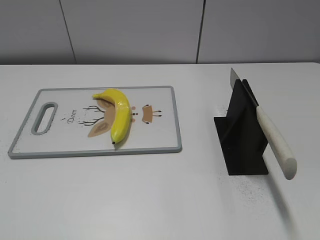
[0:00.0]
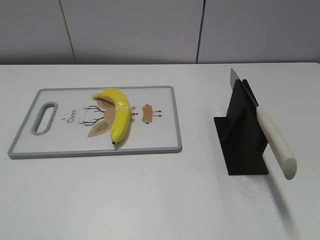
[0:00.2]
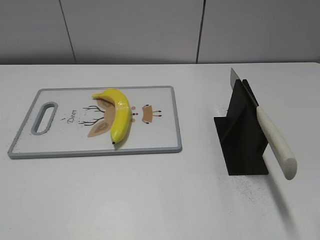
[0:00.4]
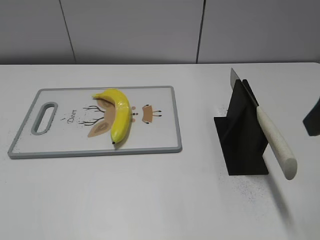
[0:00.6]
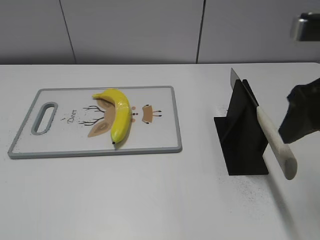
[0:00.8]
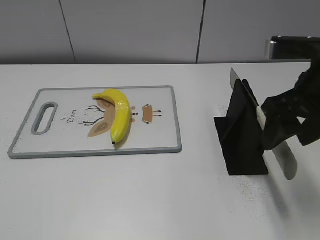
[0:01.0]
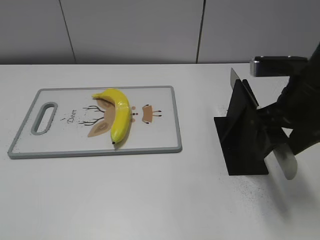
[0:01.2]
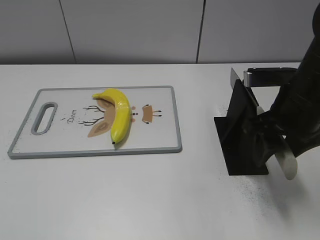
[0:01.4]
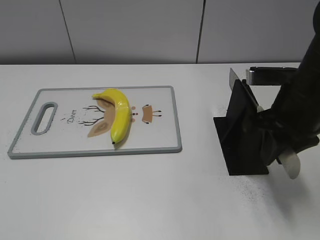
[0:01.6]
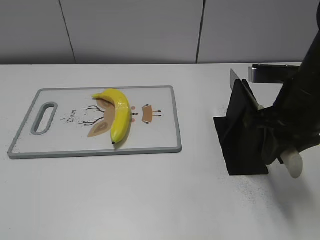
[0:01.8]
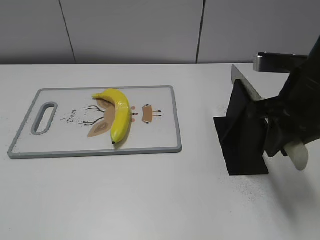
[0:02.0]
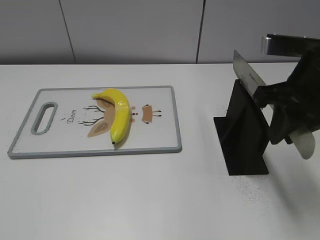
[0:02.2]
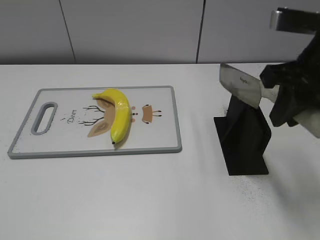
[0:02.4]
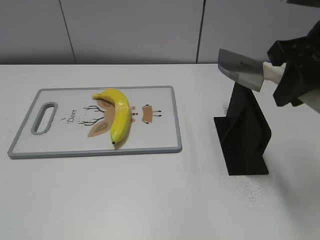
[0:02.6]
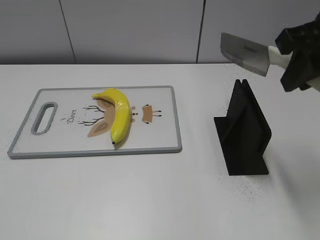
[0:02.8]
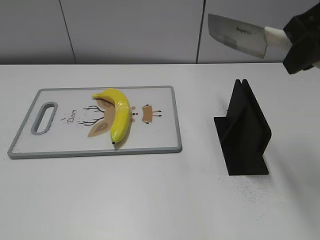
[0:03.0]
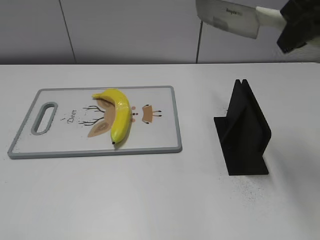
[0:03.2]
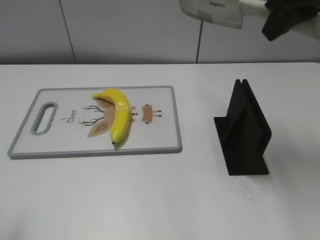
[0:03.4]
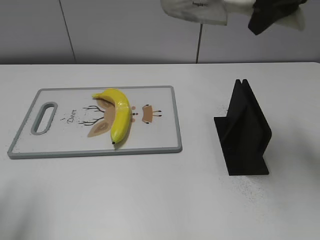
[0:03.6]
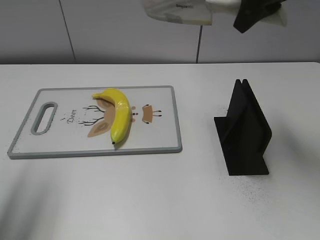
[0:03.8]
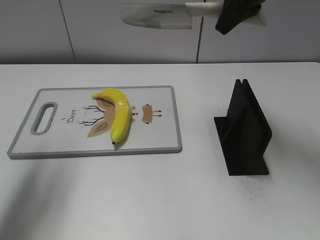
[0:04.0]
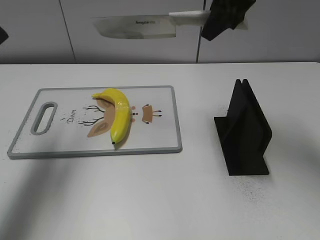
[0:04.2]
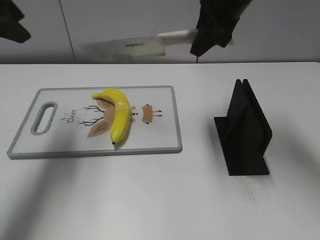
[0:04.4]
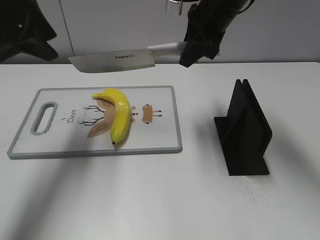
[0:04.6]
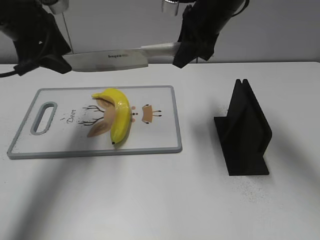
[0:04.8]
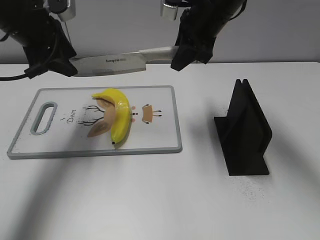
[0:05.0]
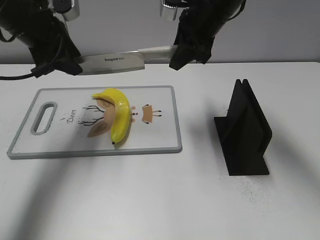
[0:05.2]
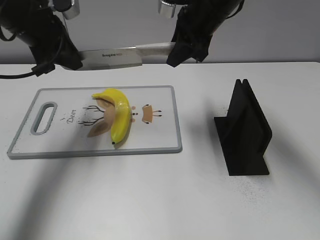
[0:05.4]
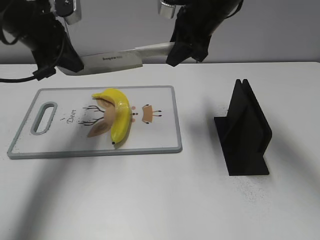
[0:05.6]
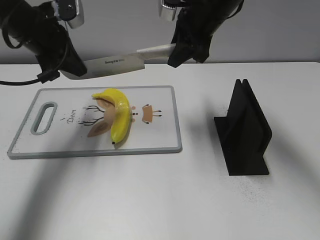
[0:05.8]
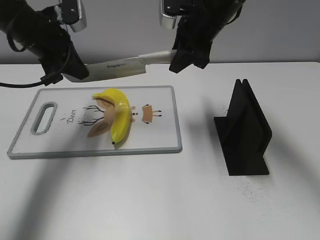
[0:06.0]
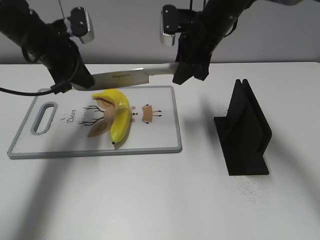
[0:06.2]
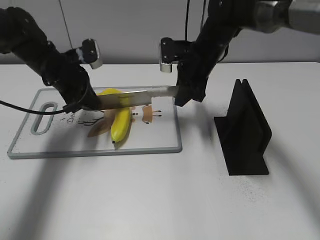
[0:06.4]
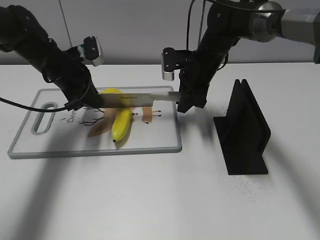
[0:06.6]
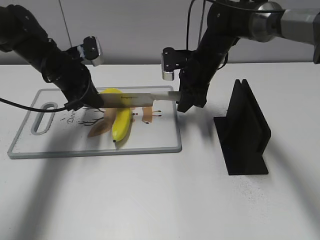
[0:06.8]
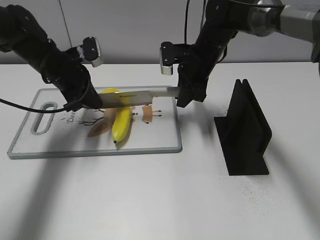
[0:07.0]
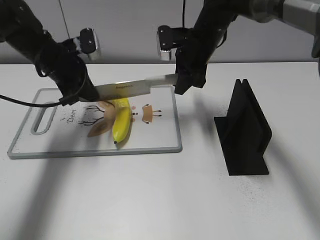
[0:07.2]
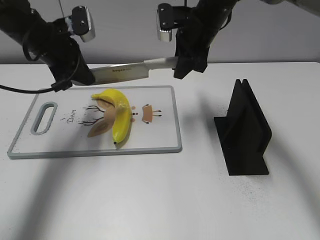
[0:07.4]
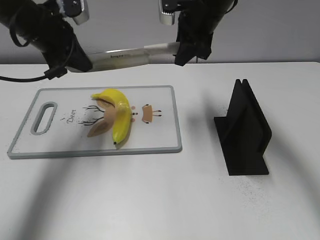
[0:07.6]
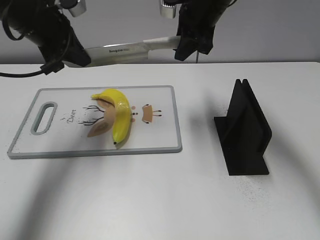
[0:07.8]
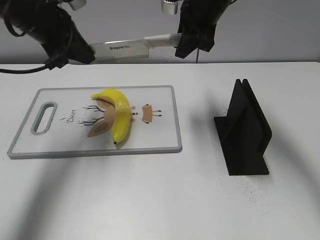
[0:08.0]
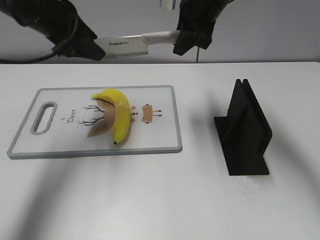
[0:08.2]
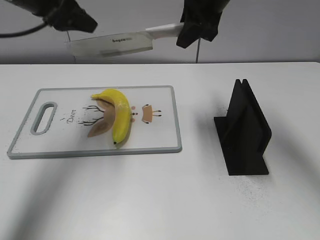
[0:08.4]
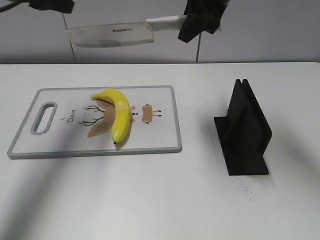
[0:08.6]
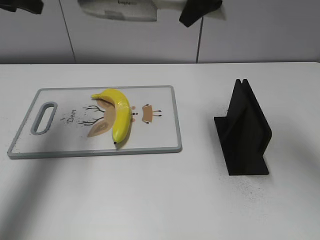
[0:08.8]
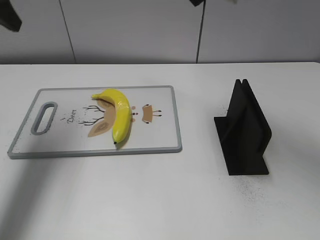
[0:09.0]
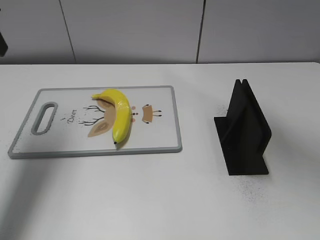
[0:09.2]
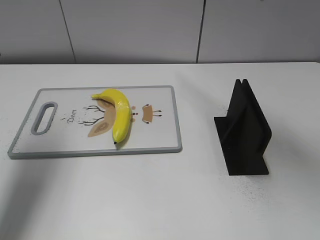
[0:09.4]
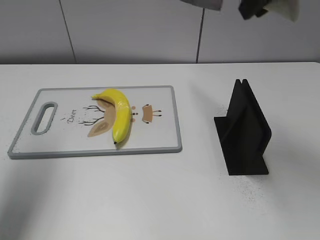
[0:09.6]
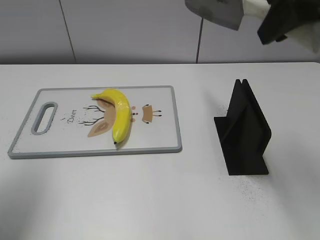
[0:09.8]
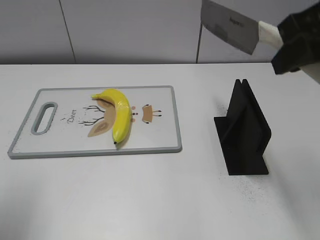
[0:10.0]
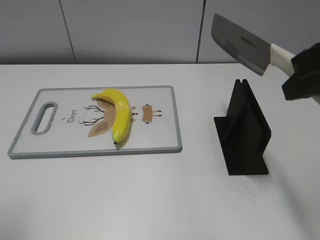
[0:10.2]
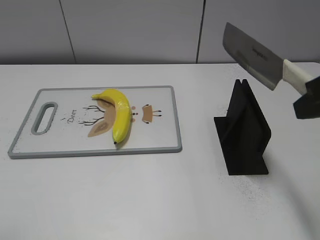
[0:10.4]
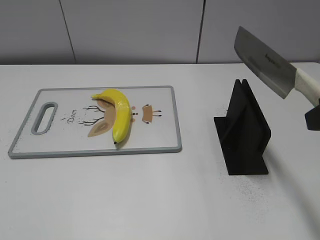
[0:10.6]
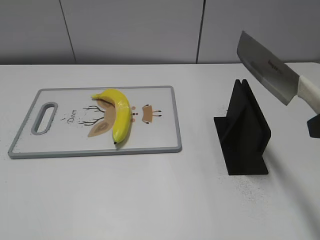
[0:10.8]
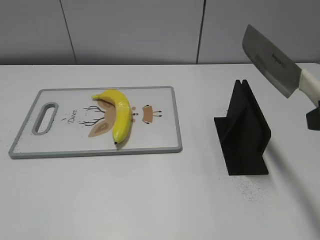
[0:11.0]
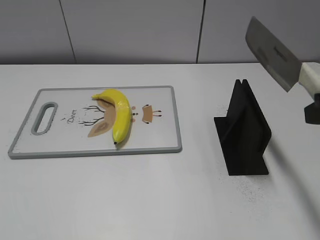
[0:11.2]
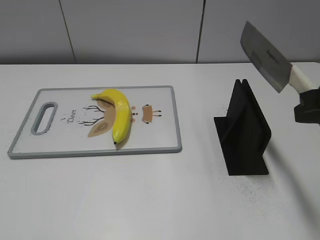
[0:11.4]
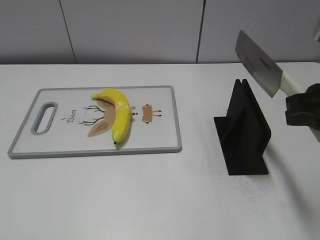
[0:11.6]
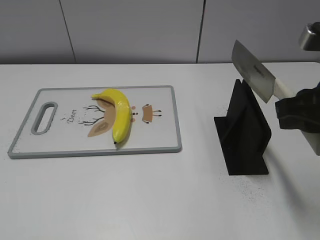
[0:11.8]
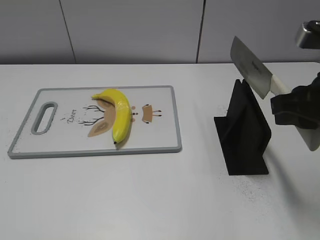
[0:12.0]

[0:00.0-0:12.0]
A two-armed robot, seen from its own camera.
Task of the whole recording: cut plastic banana.
Step, 0:00.0 to 0:02.6: Grab the knife handle with your right hand.
Step, 0:02.8 to 0:07.2: Lift the knife with your right hand.
Step, 0:07.6 to 0:09.0: Cut the banana with your left hand.
Step, 0:09.2 to 0:10.6: Lift the knife with your right hand.
0:00.0 to 0:01.6: The right gripper moves forward, downward and to the left, some 25 cm, and closes up.
0:01.6 to 0:03.0: The right gripper heads upward, covering about 15 cm.
0:03.0 to 0:04.4: The left gripper heads forward, covering some 35 cm. The right gripper shifts some 20 cm forward and to the left.
0:04.4 to 0:06.0: The left gripper shifts about 15 cm downward, forward and to the right, and closes its fingers. The right gripper is displaced downward by some 5 cm.
0:06.0 to 0:07.6: The right gripper reaches about 10 cm downward, then returns, while the left gripper reaches some 10 cm downward, then returns.
0:07.6 to 0:09.0: The right gripper is displaced upward and backward by approximately 15 cm; the left gripper shifts about 15 cm upward and to the left, and opens.
0:09.0 to 0:10.4: The right gripper travels backward and to the right by approximately 25 cm. The left gripper heads backward, covering approximately 25 cm.
0:10.4 to 0:12.0: The right gripper travels downward by some 5 cm.

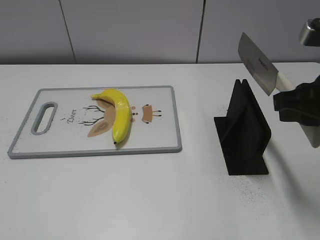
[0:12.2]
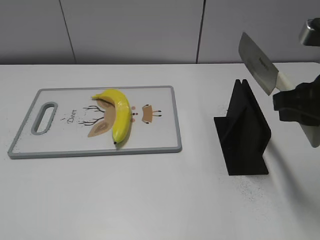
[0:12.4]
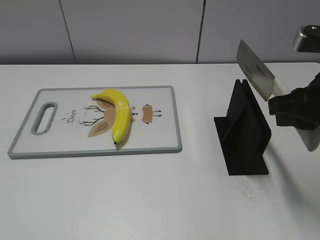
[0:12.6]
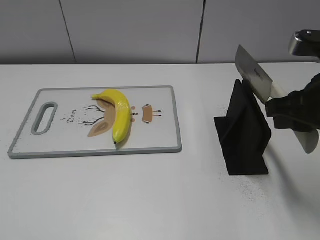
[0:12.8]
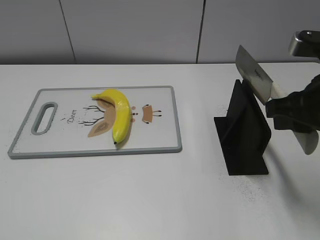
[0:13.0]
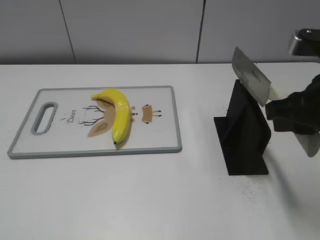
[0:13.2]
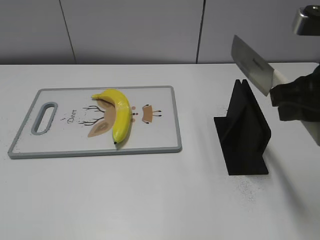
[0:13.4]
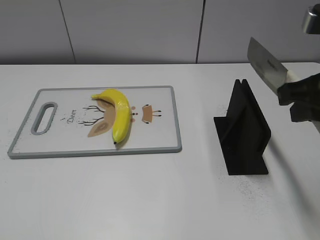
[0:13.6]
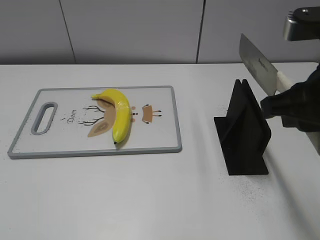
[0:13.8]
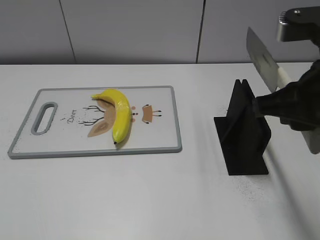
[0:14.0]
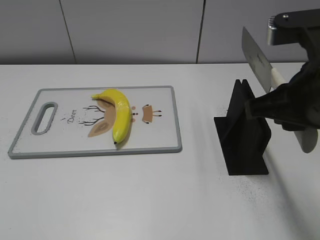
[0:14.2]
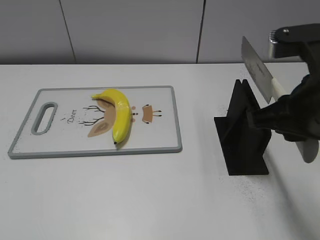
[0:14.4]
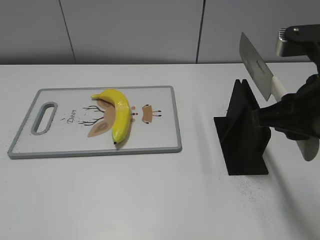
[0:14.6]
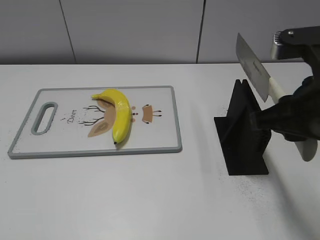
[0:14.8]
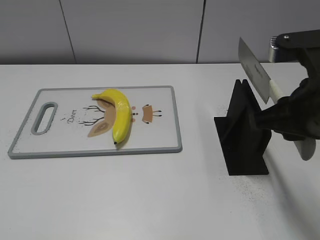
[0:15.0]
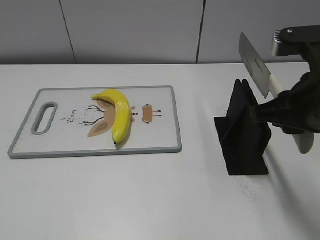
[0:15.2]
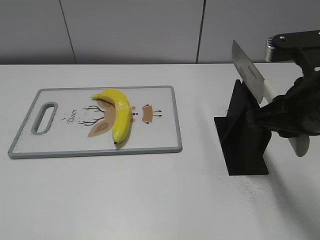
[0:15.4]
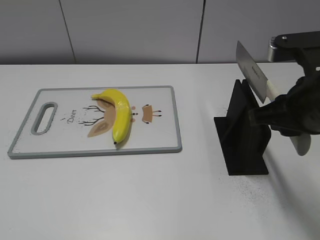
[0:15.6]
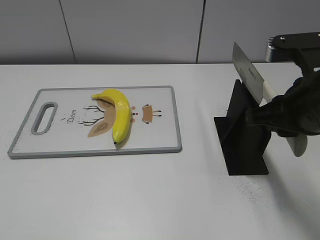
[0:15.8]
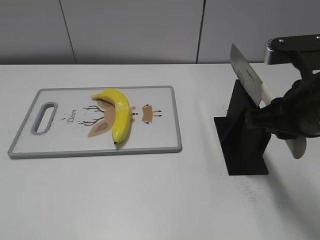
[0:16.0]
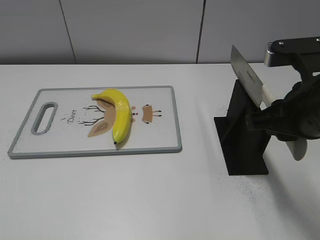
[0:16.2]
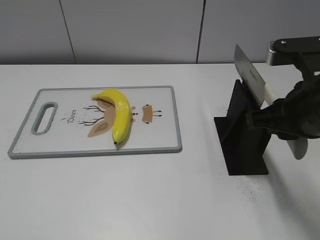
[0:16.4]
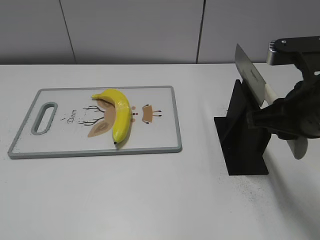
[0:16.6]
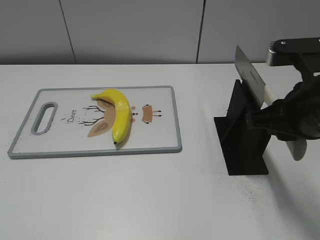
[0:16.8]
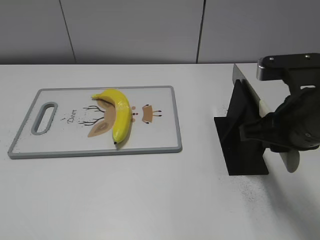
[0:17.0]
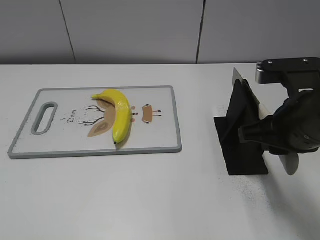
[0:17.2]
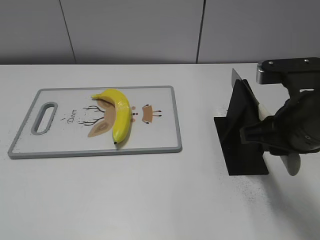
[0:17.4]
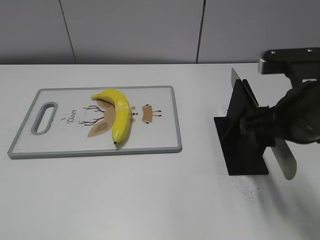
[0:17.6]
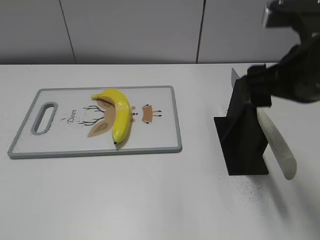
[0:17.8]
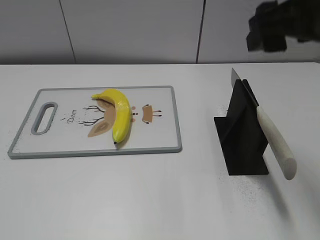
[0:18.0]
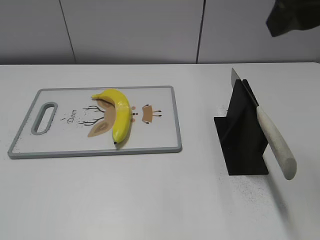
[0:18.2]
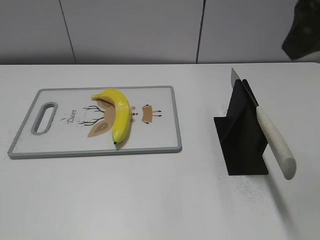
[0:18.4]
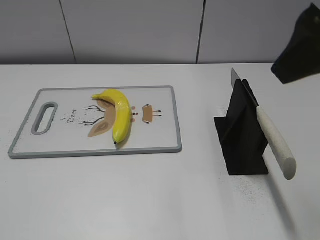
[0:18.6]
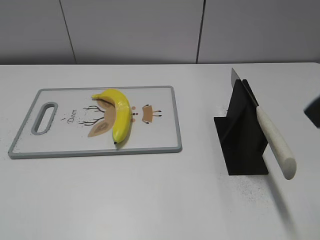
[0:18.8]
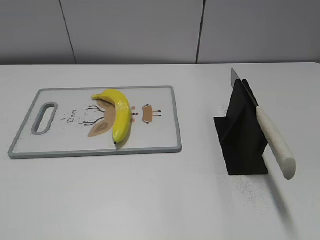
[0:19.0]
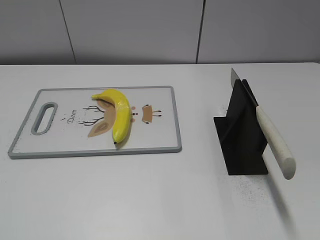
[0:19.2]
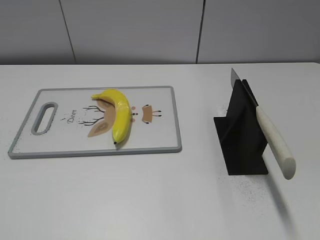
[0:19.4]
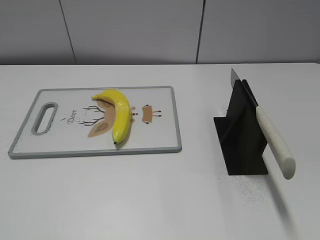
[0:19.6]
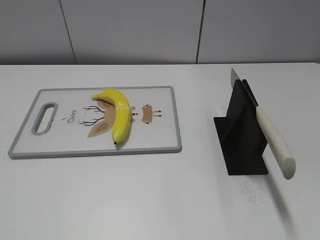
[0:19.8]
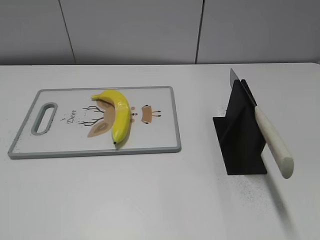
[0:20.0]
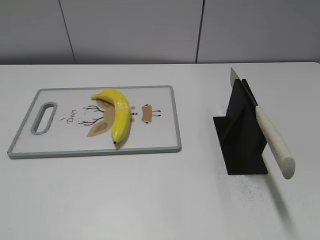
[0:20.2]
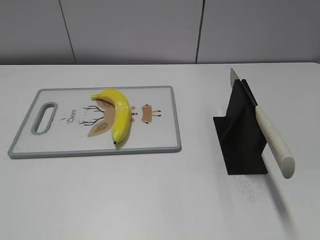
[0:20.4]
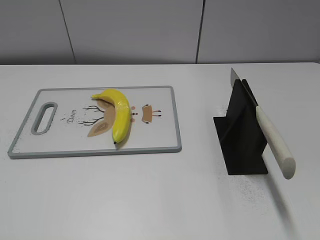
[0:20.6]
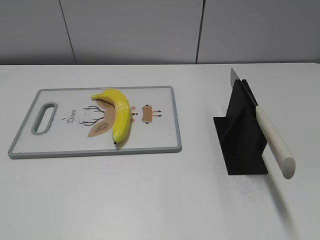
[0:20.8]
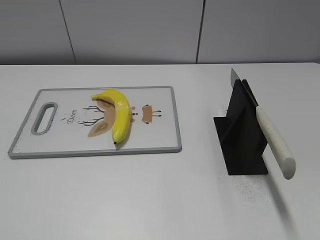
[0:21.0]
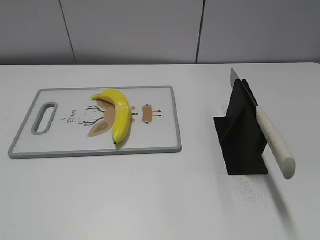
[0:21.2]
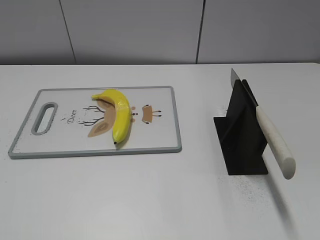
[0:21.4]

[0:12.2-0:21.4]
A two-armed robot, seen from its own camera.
Task of the whole recording: cut plastic banana.
Step, 0:12.2 to 0:21.4: Place the knife on the storage rack with your right hand.
0:12.2 to 0:13.8: The right gripper changes place by some 5 cm.
0:13.8 to 0:16.8: The grippers move only a little.
0:16.8 to 0:18.4: The right gripper is displaced upward by about 15 cm, and opens up.
0:18.4 to 0:19.8: The right gripper is displaced backward, downward and to the right by about 25 cm.
